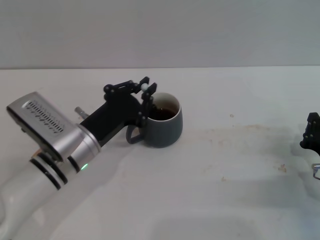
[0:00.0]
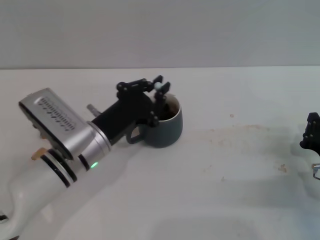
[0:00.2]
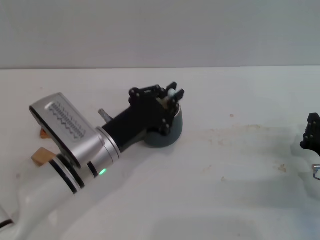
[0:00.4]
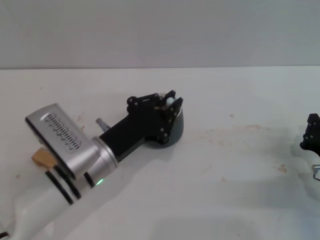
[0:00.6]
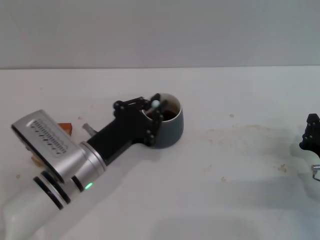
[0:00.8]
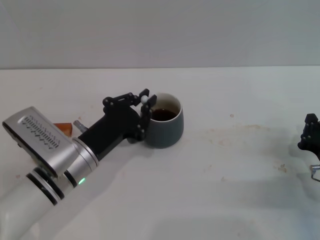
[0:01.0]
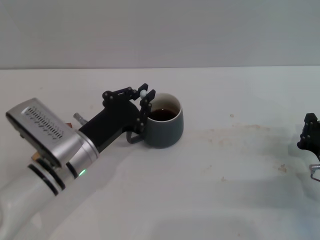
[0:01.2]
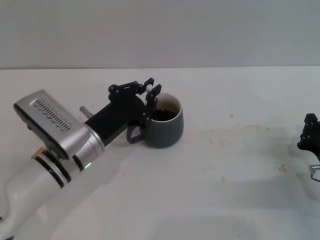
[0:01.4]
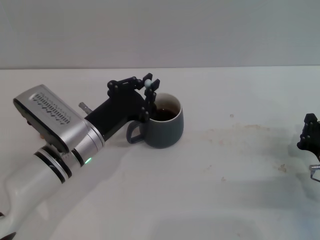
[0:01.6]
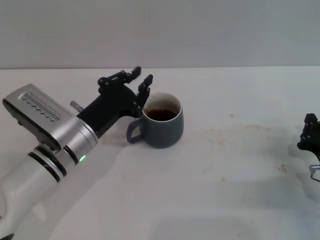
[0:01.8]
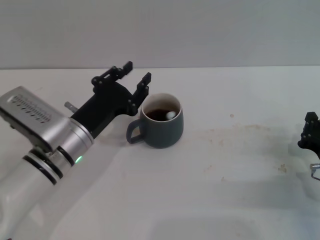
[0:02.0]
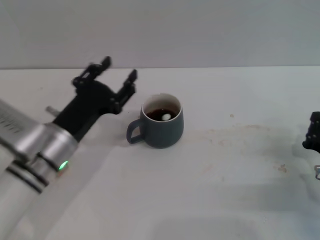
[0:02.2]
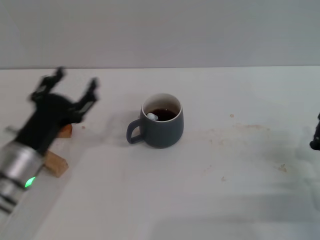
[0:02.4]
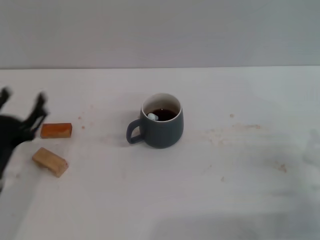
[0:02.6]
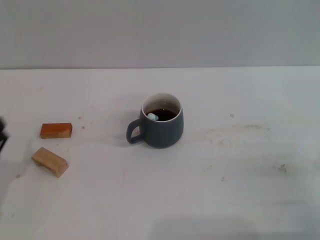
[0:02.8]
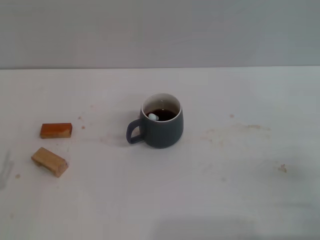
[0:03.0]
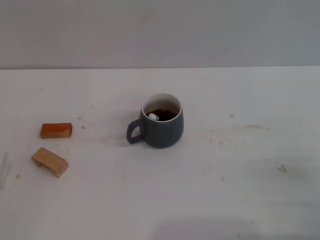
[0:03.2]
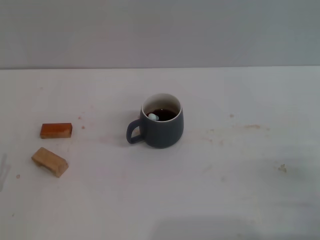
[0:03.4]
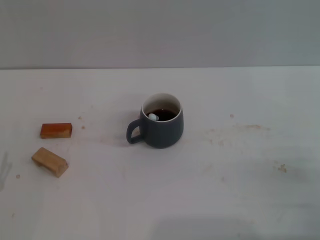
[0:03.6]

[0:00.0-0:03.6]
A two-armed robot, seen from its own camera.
Task of the whole recording: Move the grey cup to the center, lift the blue spoon, stir it three times in the cup, and put the spoon into the cup.
0:00.0 to 0:01.8: The grippers move only a little.
0:01.8 to 0:03.6: The left gripper shifts about 25 cm to the left and backward, and opens up, while the right gripper moves backward, about 5 cm.

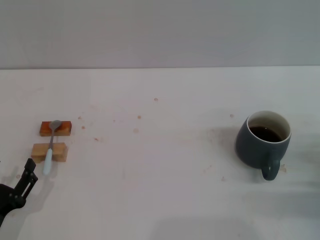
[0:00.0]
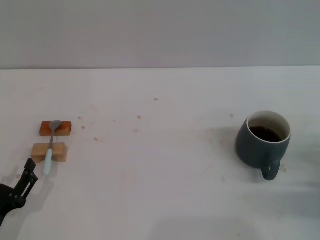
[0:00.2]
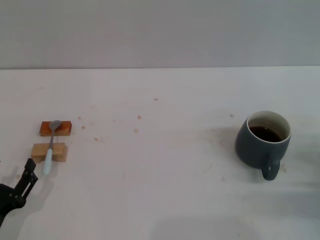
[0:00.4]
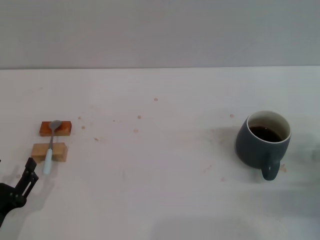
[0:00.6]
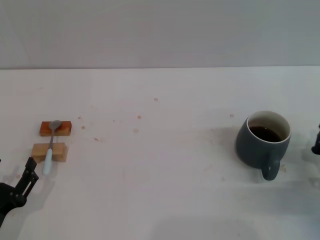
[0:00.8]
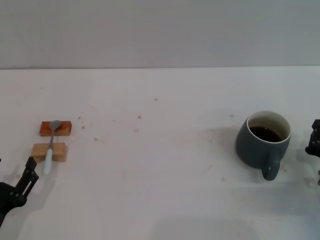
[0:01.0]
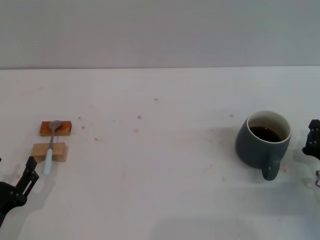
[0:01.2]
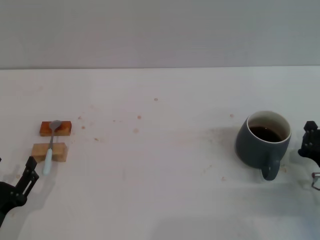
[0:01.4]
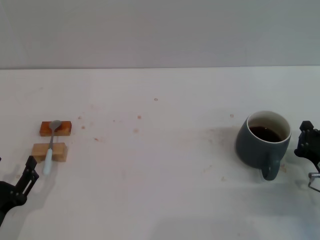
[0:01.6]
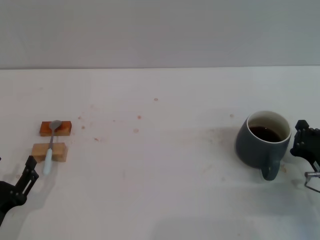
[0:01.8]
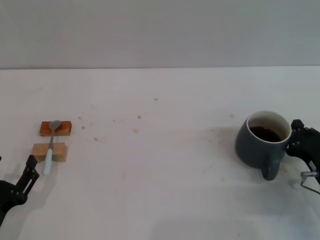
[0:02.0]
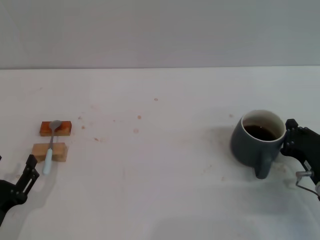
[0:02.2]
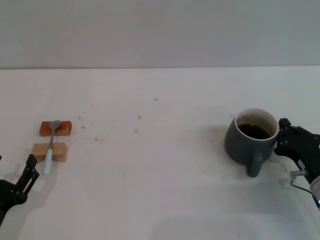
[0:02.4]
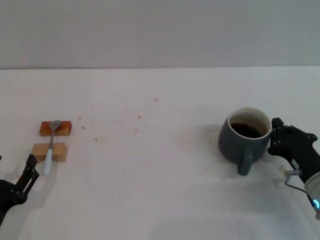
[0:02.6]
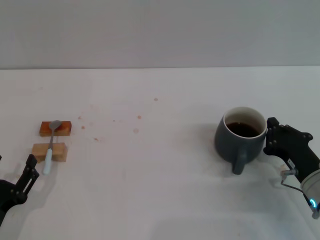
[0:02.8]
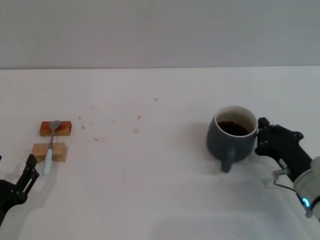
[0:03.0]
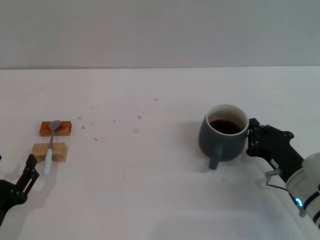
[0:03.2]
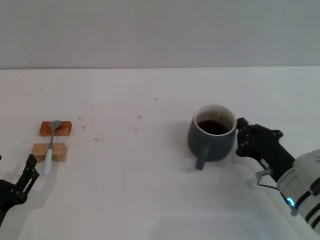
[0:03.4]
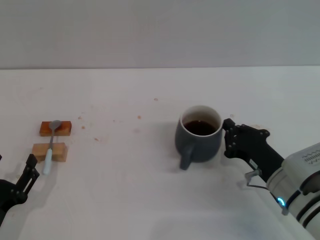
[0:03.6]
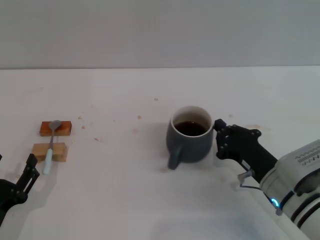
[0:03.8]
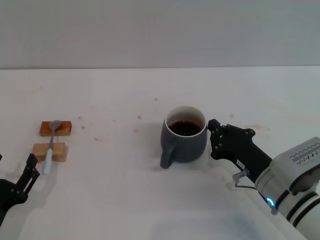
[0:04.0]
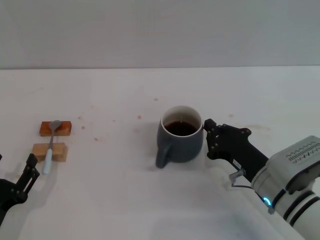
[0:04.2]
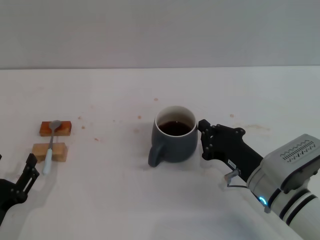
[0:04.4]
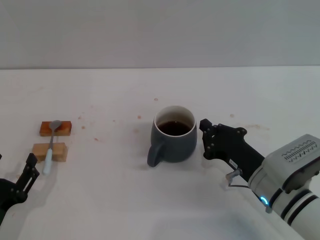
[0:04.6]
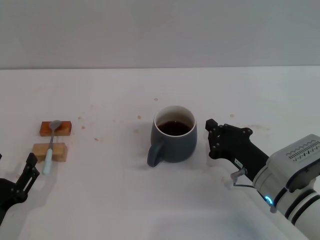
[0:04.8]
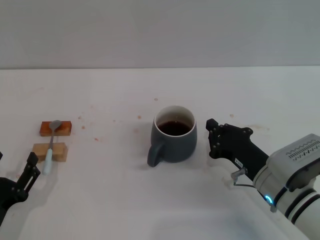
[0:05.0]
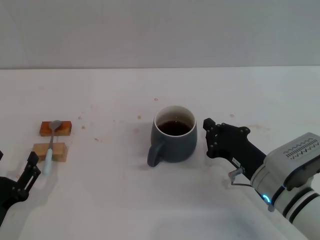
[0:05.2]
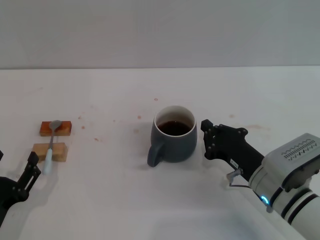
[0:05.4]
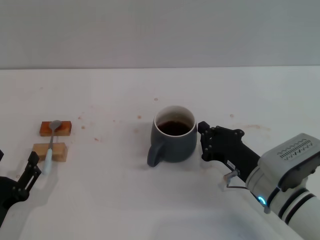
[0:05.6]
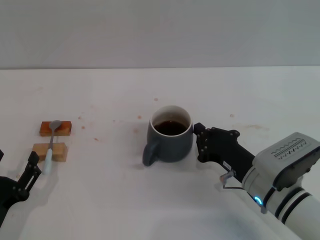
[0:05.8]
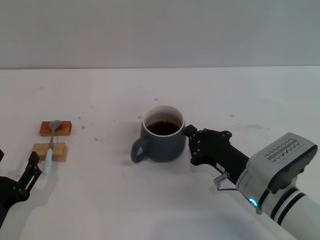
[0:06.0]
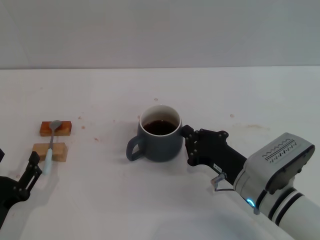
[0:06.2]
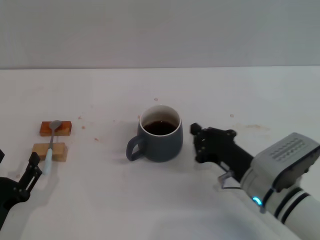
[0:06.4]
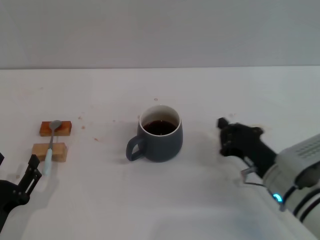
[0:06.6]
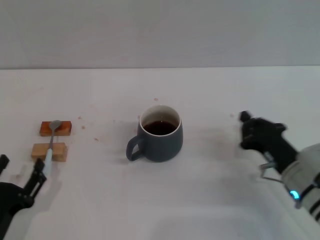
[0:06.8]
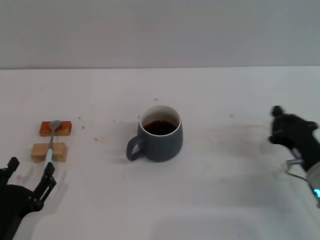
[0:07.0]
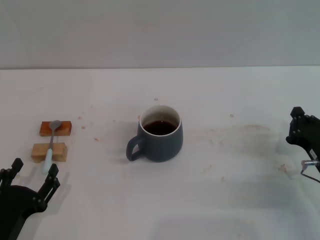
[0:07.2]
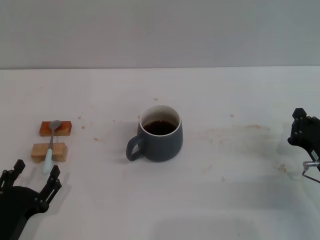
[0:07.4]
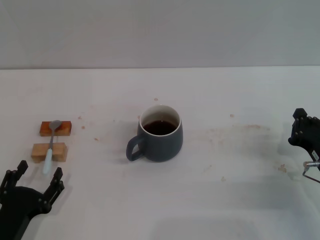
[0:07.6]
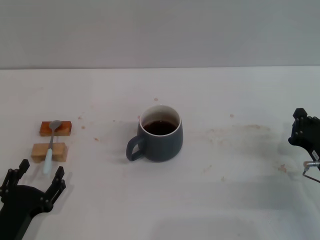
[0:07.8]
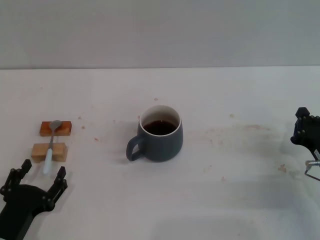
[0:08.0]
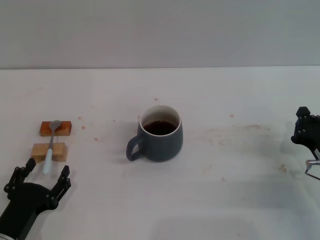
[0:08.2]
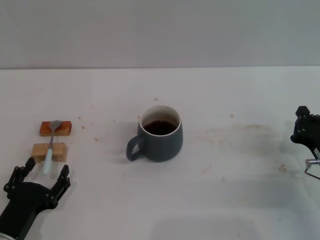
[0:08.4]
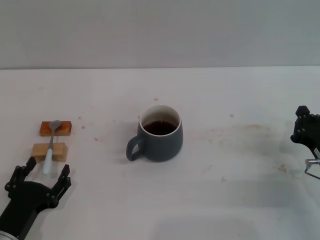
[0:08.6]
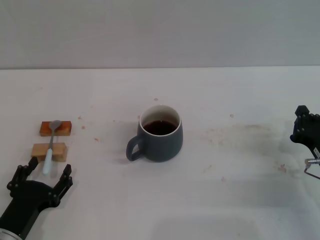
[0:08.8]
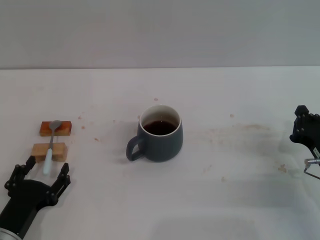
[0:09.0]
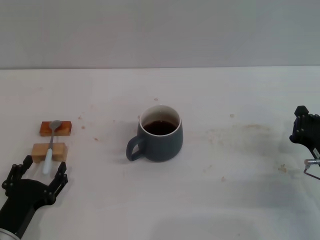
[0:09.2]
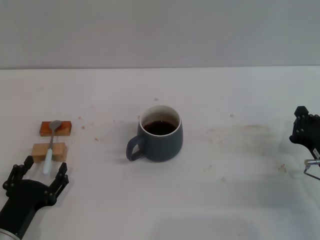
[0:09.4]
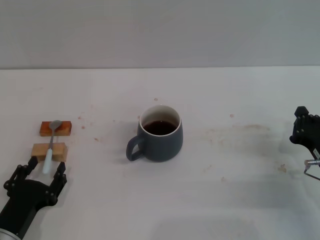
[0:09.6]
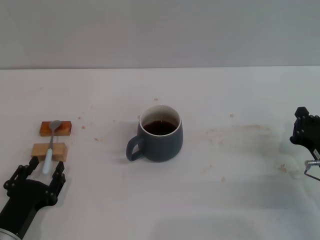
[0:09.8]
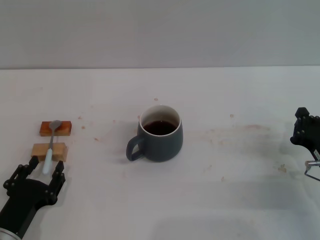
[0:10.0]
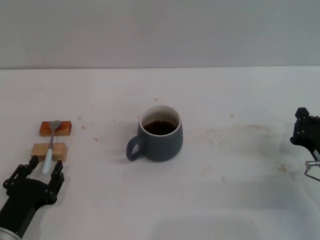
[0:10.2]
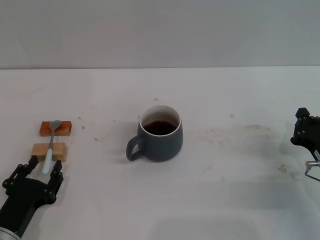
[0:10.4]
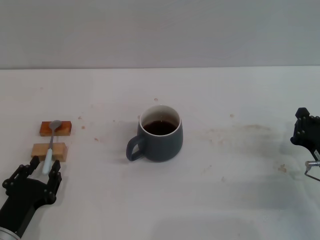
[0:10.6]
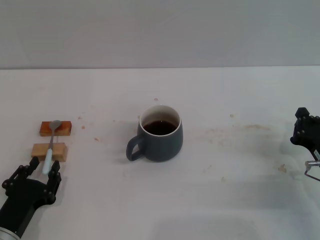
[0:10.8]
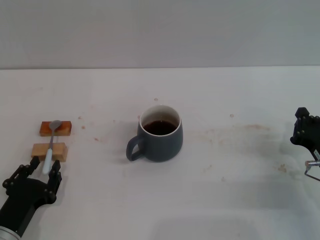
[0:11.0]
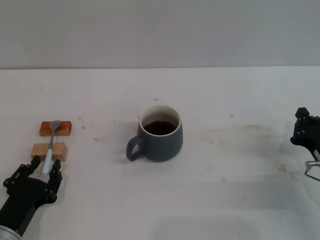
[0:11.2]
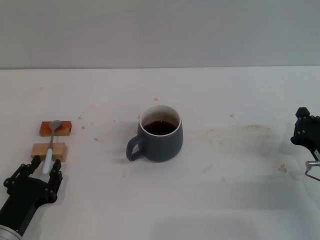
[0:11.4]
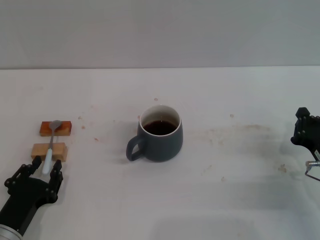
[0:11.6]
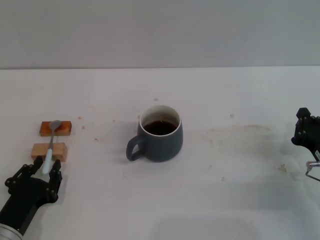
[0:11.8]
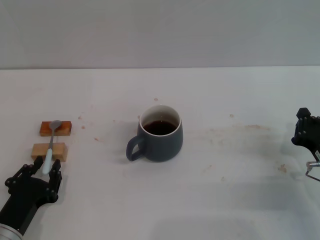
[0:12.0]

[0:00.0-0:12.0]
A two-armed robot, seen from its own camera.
Task of the whole recording: Move the grey cup to the center, lift the blue spoon, stir it three times in the cup, and put the spoon into the cup.
Step, 0:00.0 to 0:04.8: Move the cup with coffee to the center of view with the right gripper.
0:00.0 to 0:01.6: The grippers move only a little.
0:01.6 to 0:03.0: The grippers move only a little.
0:03.0 to 0:04.4: The right gripper shifts roughly 5 cm to the left.
0:04.4 to 0:06.0: The grippers make only small movements.
0:06.0 to 0:07.6: The right gripper moves to the right, some 10 cm.
0:07.6 to 0:09.0: There are only small adjustments of the grippers.
0:09.0 to 0:10.4: The left gripper closes.
0:10.4 to 0:12.0: Both grippers stay about where they are.

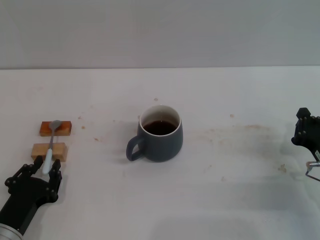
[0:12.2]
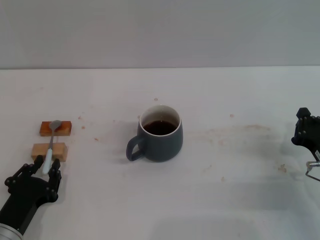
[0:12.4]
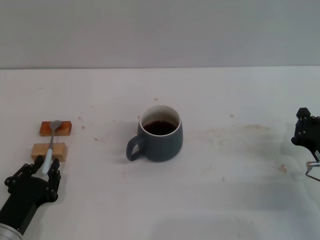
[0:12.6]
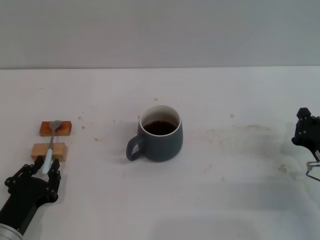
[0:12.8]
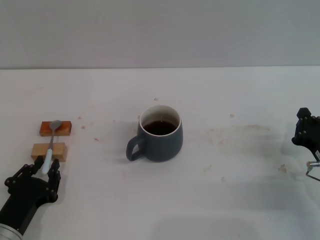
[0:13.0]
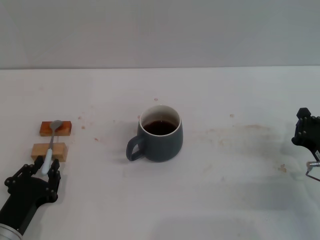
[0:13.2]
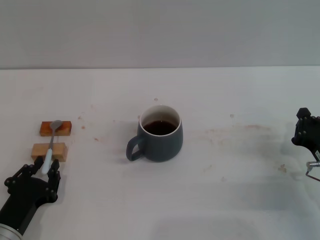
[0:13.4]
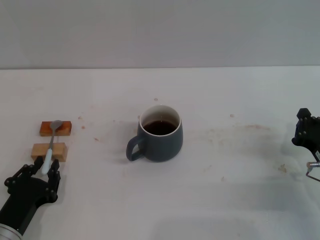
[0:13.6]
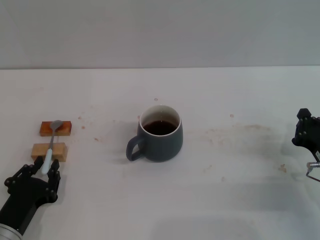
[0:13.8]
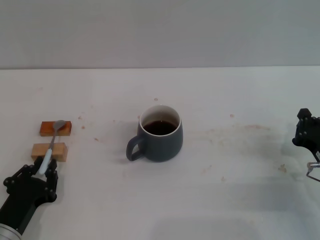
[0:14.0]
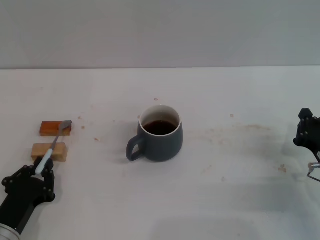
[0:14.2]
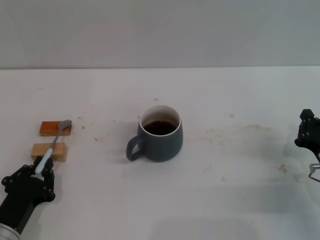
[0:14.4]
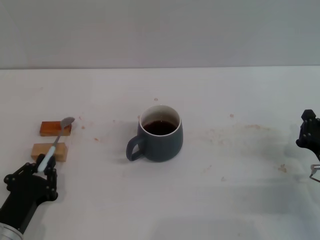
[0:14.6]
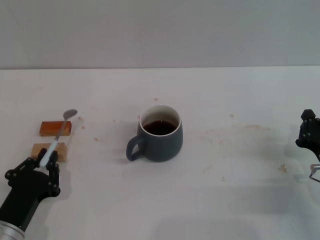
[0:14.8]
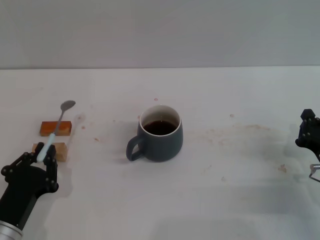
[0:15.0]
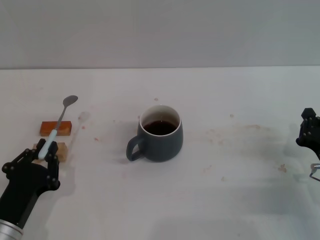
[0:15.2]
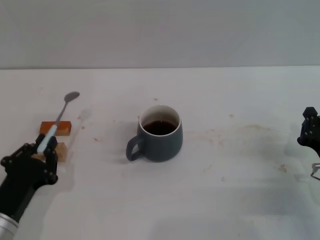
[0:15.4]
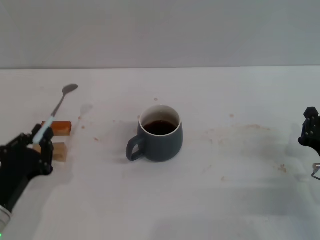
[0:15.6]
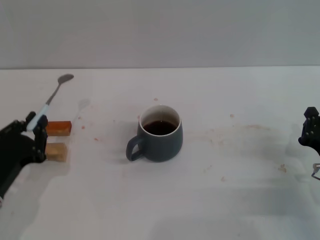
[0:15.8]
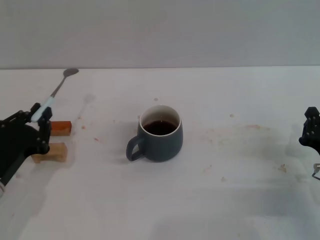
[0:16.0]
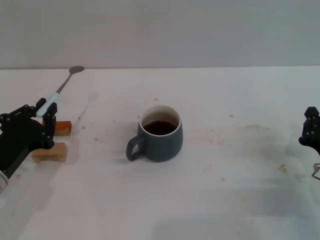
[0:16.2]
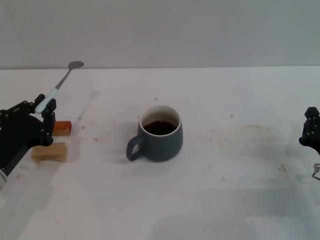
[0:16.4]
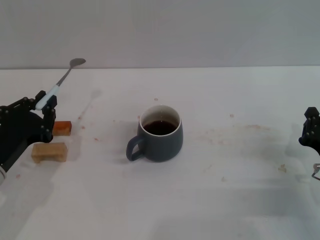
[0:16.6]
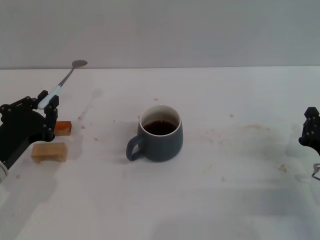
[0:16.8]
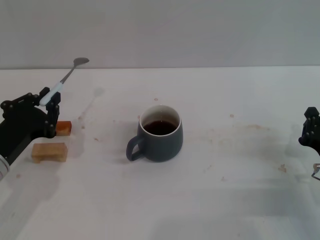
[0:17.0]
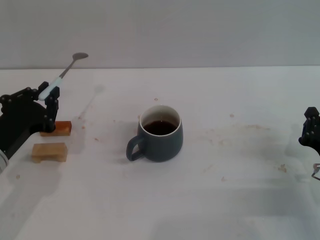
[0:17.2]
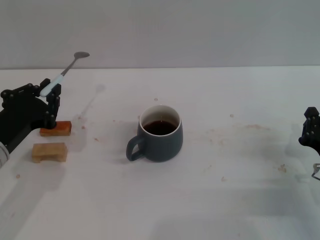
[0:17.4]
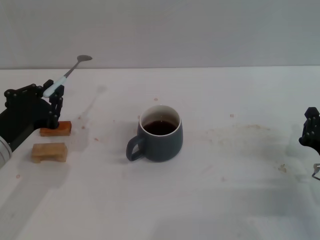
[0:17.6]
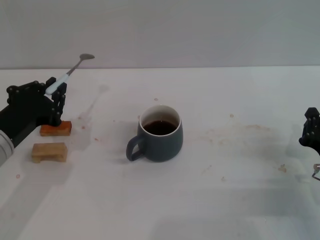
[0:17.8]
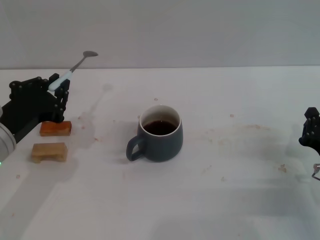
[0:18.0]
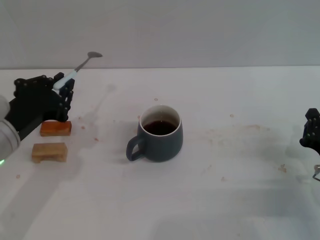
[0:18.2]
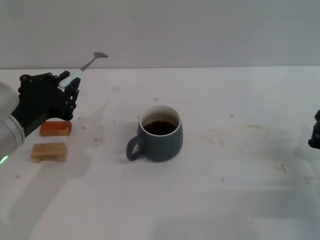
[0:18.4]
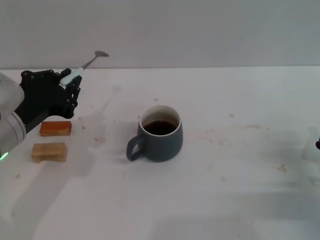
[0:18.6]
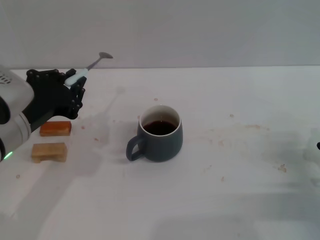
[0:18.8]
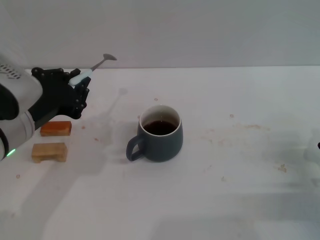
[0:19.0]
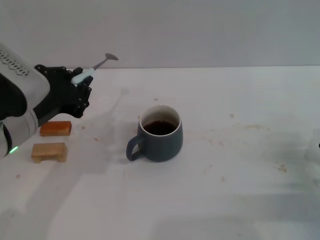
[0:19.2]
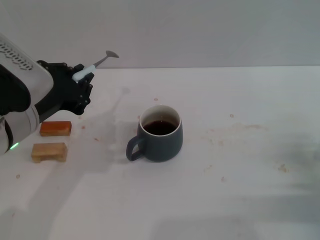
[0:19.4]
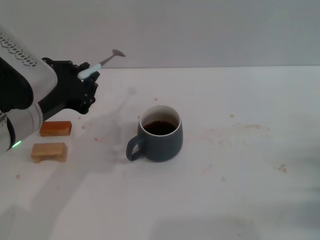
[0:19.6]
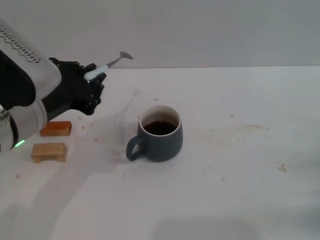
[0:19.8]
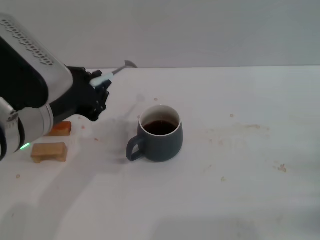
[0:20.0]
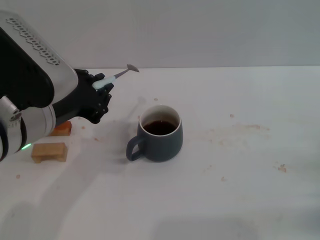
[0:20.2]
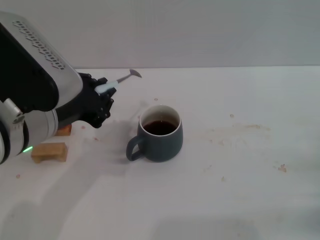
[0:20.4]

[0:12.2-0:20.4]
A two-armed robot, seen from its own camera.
Task of the whole recording: Move the grey cup to the center, lift the blue spoon, stir it three times in the cup, and put the spoon into the cup.
Step, 0:12.2 to 0:17.2: Pick up the spoon with the left gripper.
0:12.2 to 0:13.8: Both grippers stay put.
0:13.8 to 0:15.4: The grippers make only small movements.
0:15.4 to 0:17.2: The left gripper shifts approximately 10 cm upward and forward.
0:17.2 to 0:18.8: The left gripper is displaced upward by roughly 5 cm.
0:18.8 to 0:20.4: The left gripper moves roughly 5 cm. Meanwhile the right gripper shifts by approximately 5 cm.
